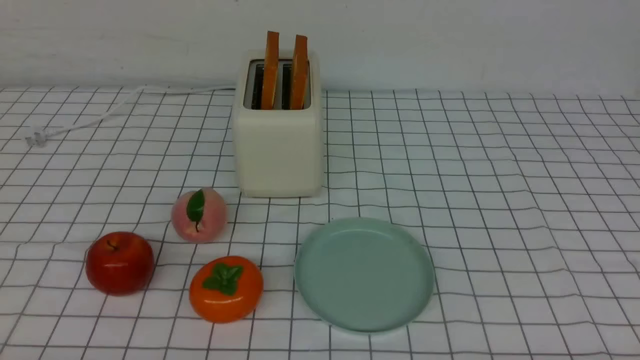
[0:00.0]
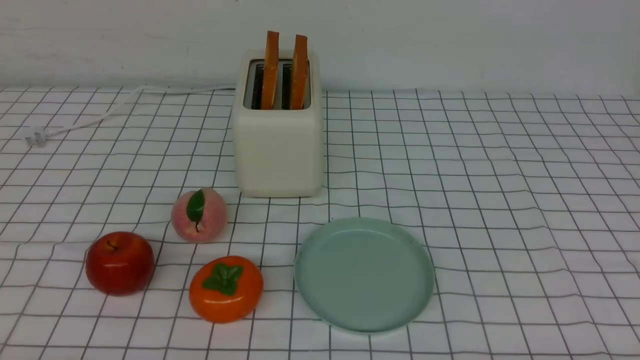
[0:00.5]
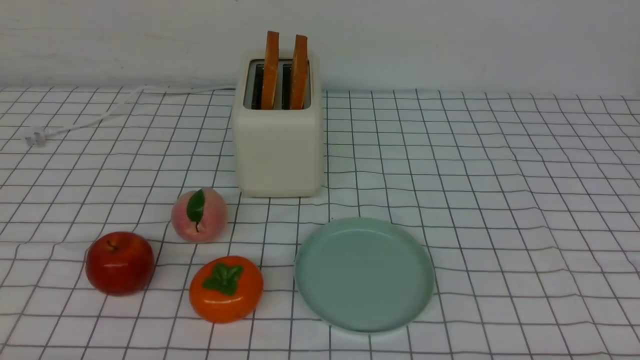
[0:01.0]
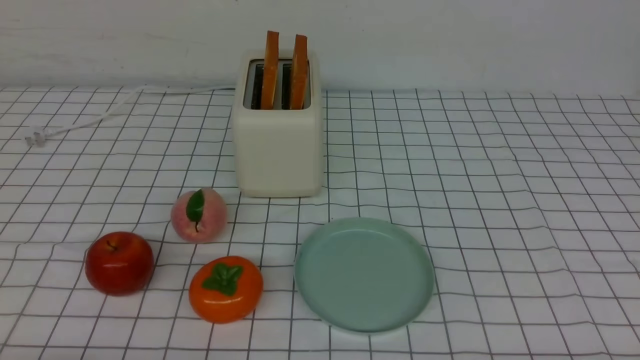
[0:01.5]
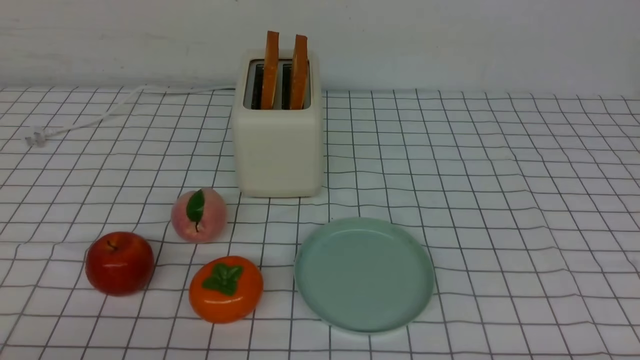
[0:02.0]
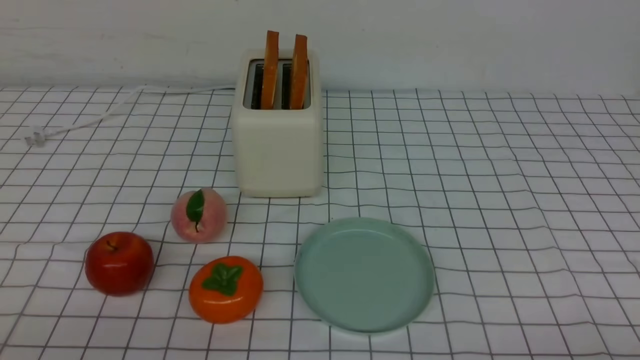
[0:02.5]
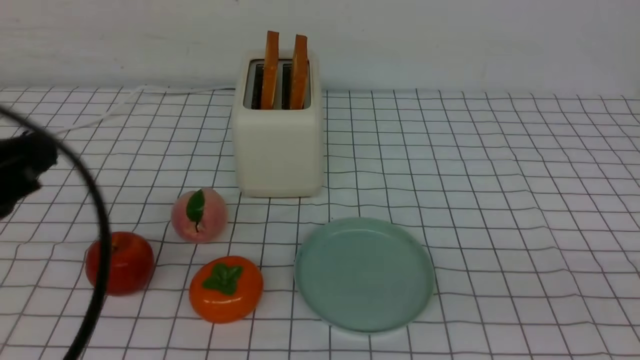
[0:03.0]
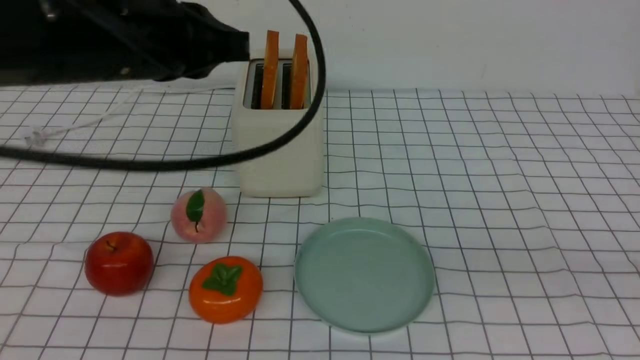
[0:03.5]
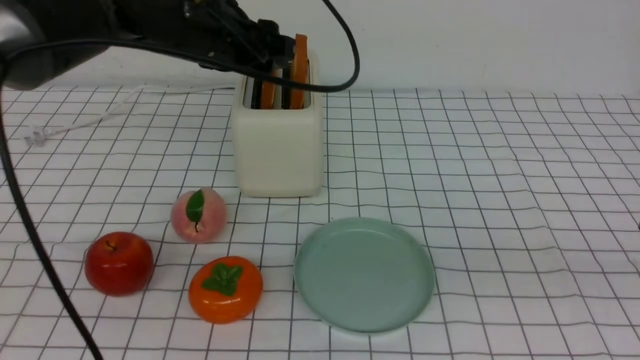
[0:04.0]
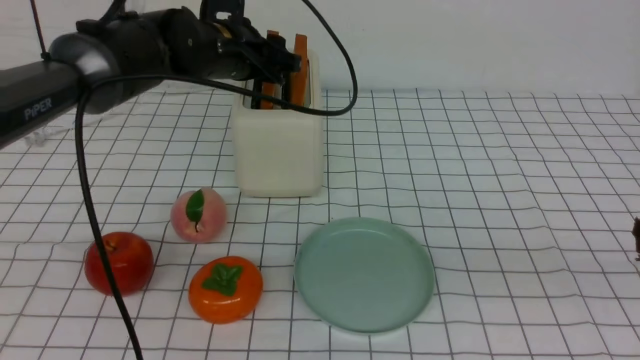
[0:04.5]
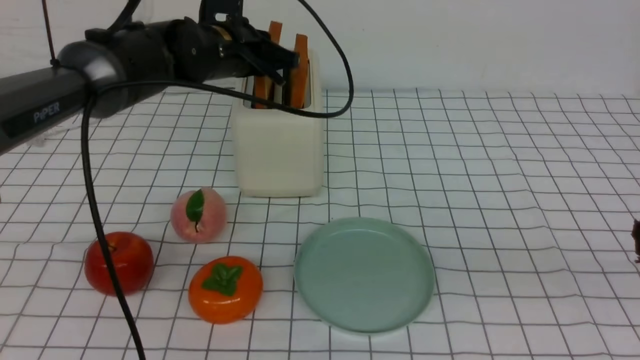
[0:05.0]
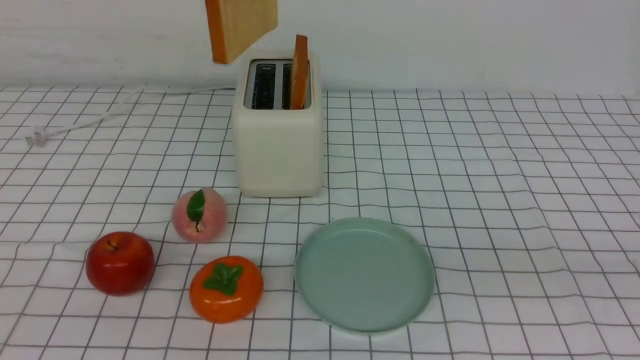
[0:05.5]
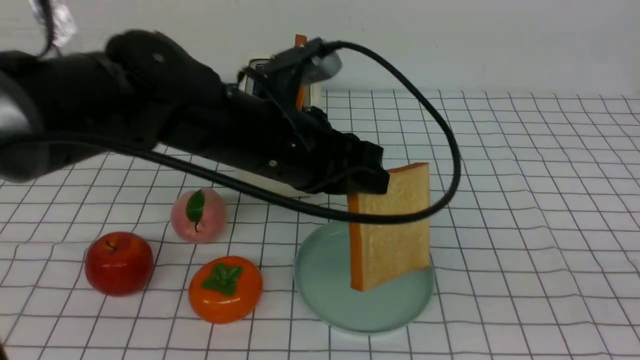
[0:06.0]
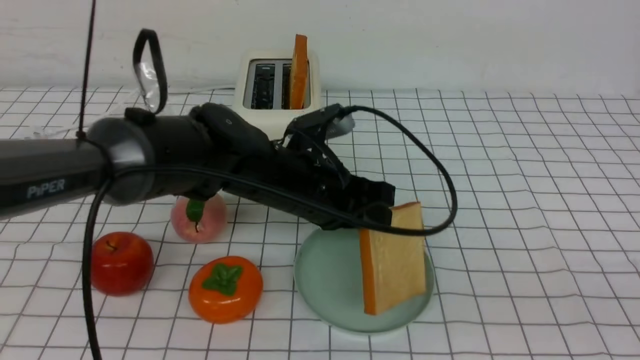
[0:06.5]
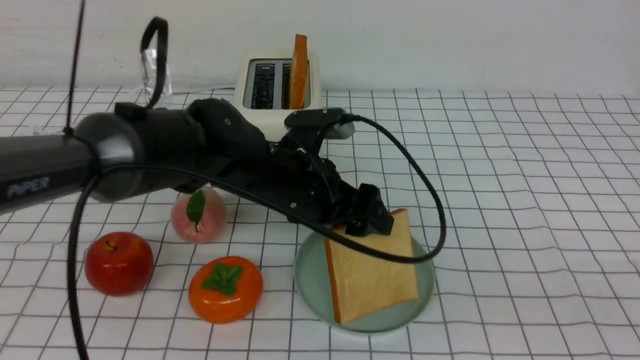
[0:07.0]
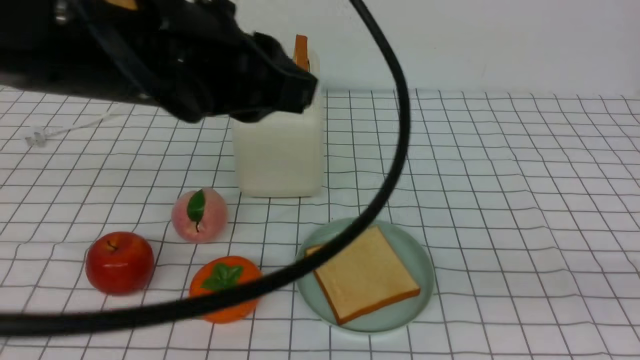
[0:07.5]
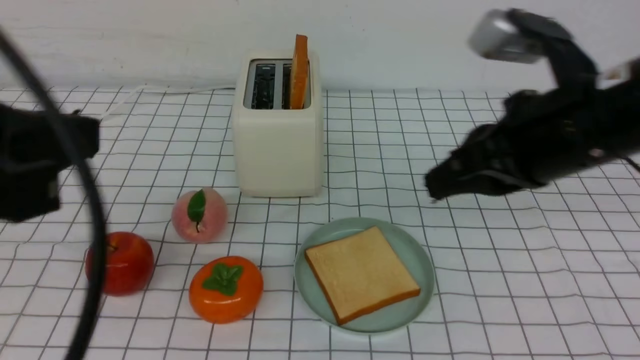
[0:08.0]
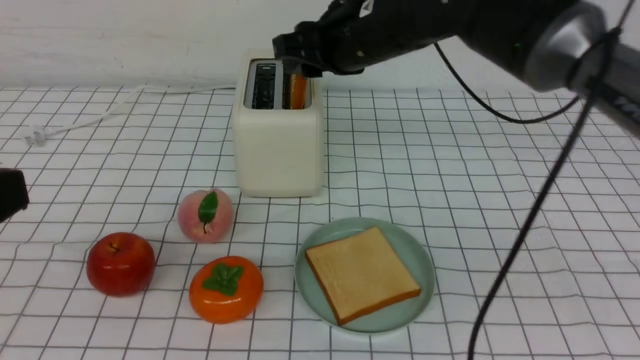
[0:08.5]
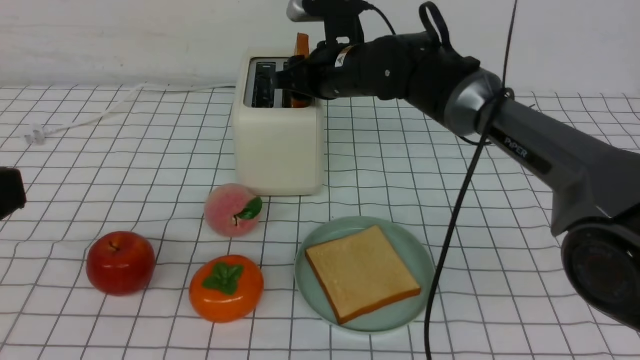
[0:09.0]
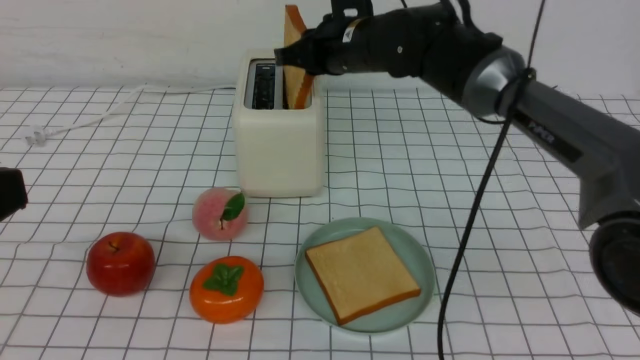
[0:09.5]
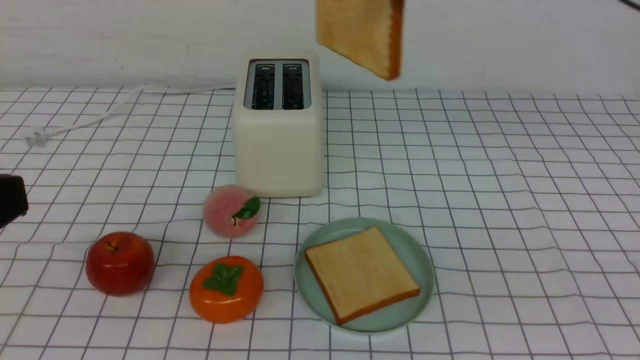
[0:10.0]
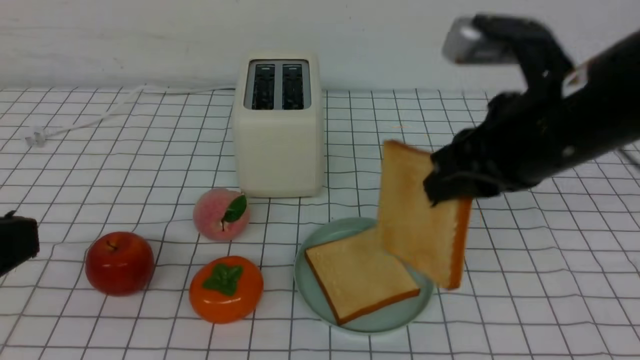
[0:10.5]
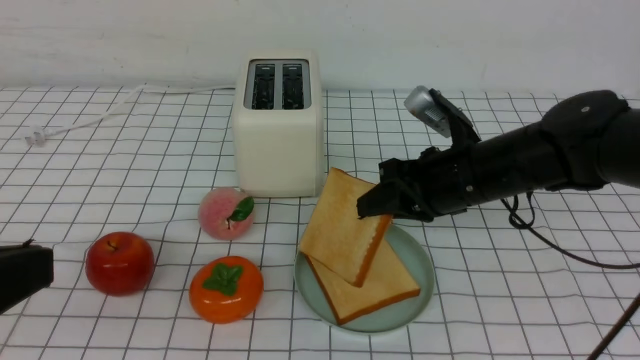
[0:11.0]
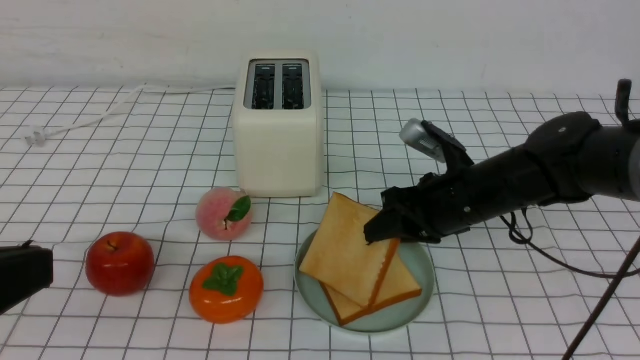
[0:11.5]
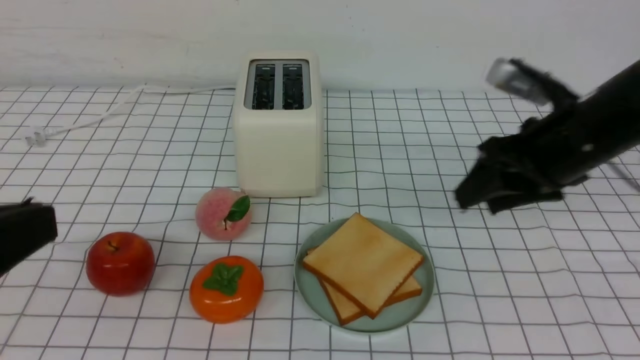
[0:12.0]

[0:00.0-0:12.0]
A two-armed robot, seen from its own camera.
Task of the whole recording: take toasted bread from bread machine on white checkered table place on plate.
Step, 0:00.0 to 0:05.0: use the left arm to take out a slice of bread.
Step, 0:05.5 to 0:07.0: use the left arm to put a slice of bread into the empty plate.
Step, 0:07.5 to 0:09.5: use the right arm to take out a slice of bread.
Step, 0:10.0 to 0:11.5: use the right arm to put a slice of bread into the plate.
0:02.0 to 0:04.0: The left gripper moves forward, upward and to the right, roughly 40 cm, and closes and opens again. The right gripper goes roughly 20 cm upward, and closes its fingers.
0:04.0 to 0:06.0: The left gripper heads backward and to the right, covering some 10 cm, and closes its fingers. Meanwhile the right gripper moves backward, approximately 5 cm.
0:06.0 to 0:08.0: The left gripper is displaced backward, to the left and upward by approximately 25 cm, and opens, then closes once more. Meanwhile the right gripper heads forward and to the left, covering approximately 25 cm.
0:08.0 to 0:10.0: The right gripper moves upward, some 10 cm, reaches about 20 cm forward, then returns, and opens, then closes once more, while the left gripper ends up some 5 cm from where it was.
0:10.0 to 0:12.0: The right gripper goes about 20 cm downward and to the right, and opens its fingers.
